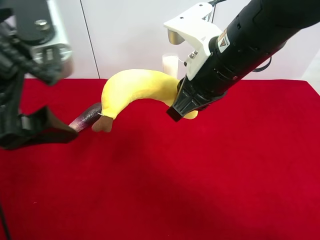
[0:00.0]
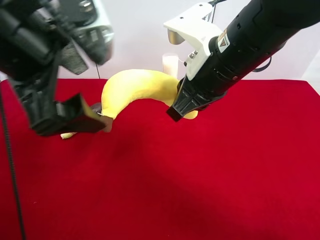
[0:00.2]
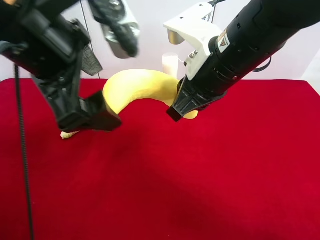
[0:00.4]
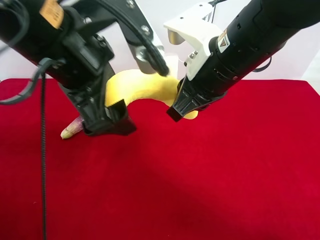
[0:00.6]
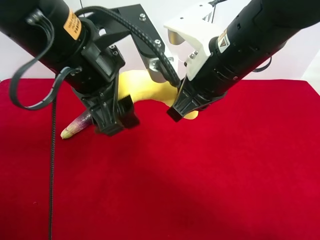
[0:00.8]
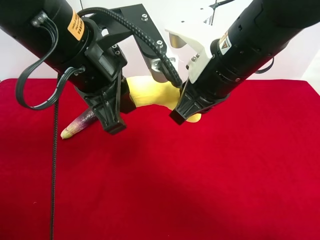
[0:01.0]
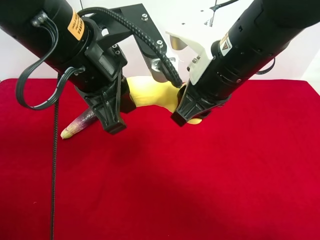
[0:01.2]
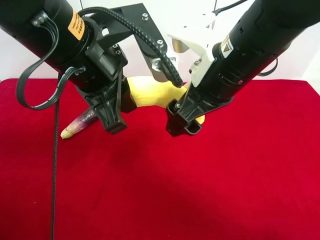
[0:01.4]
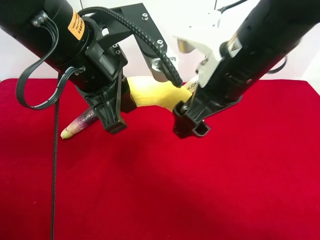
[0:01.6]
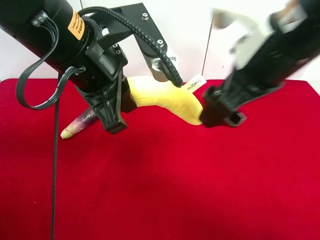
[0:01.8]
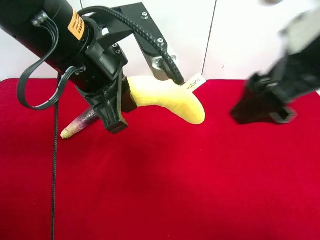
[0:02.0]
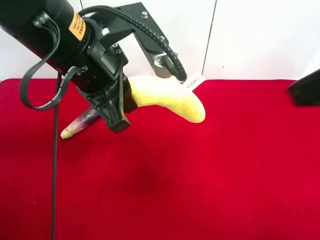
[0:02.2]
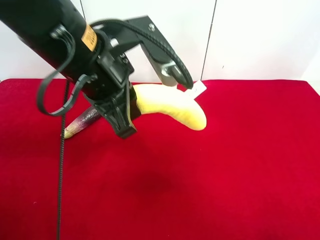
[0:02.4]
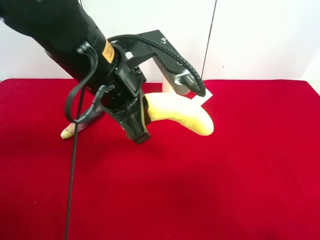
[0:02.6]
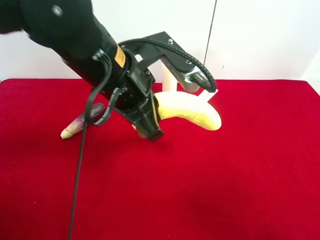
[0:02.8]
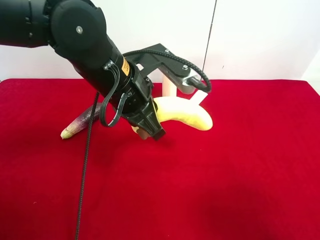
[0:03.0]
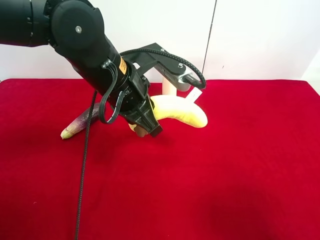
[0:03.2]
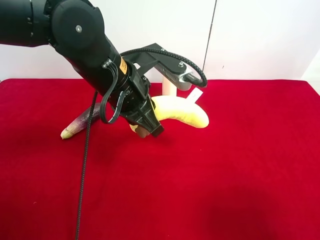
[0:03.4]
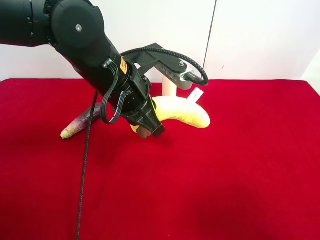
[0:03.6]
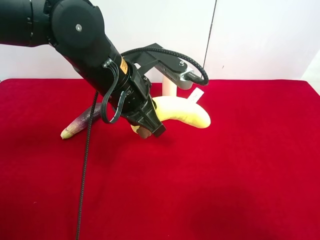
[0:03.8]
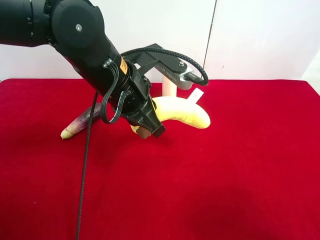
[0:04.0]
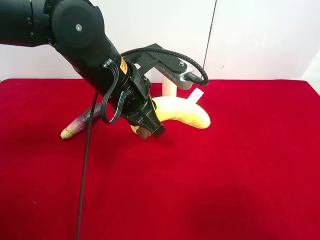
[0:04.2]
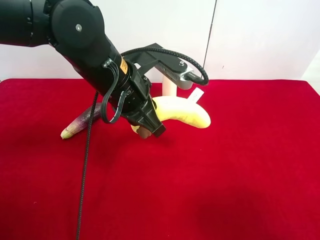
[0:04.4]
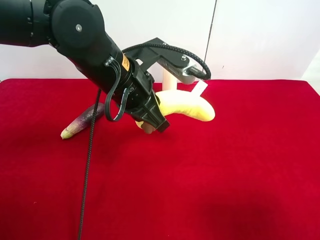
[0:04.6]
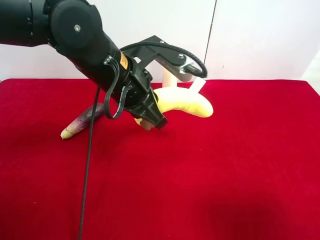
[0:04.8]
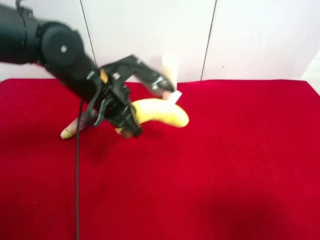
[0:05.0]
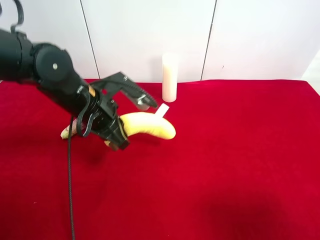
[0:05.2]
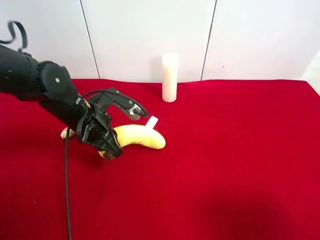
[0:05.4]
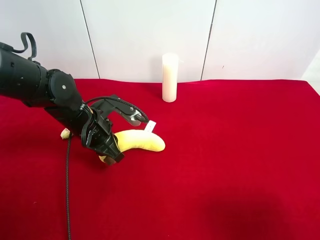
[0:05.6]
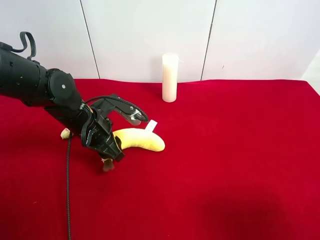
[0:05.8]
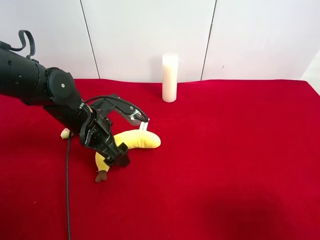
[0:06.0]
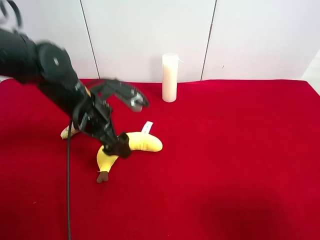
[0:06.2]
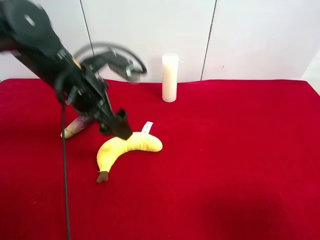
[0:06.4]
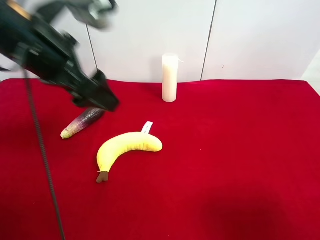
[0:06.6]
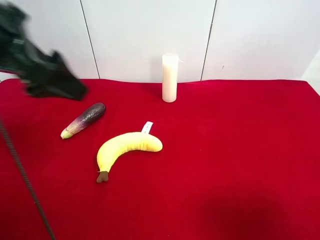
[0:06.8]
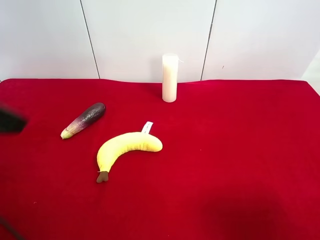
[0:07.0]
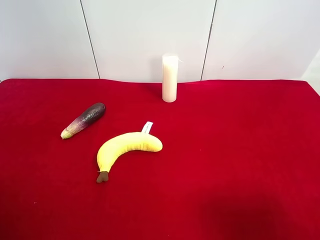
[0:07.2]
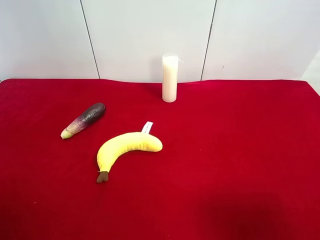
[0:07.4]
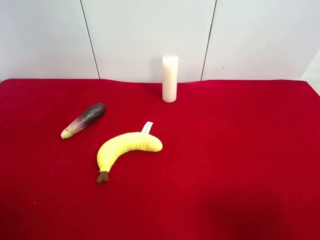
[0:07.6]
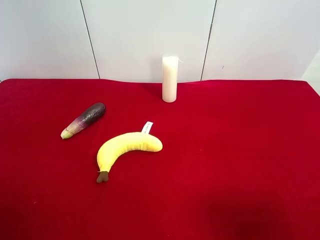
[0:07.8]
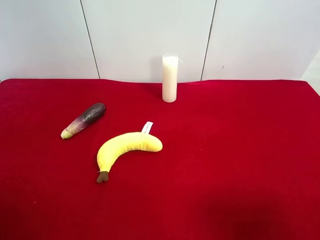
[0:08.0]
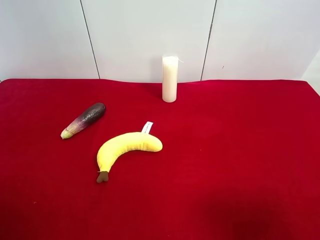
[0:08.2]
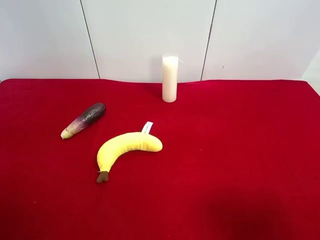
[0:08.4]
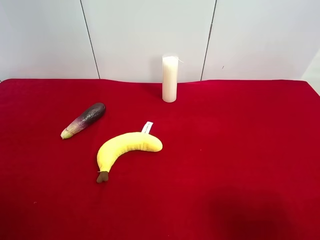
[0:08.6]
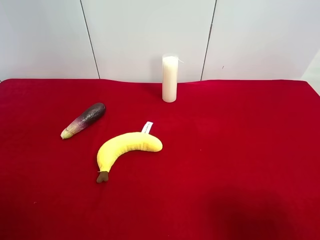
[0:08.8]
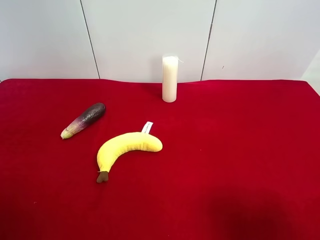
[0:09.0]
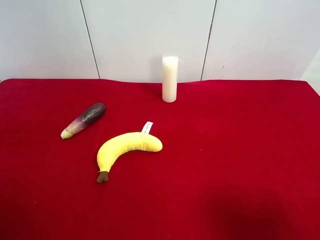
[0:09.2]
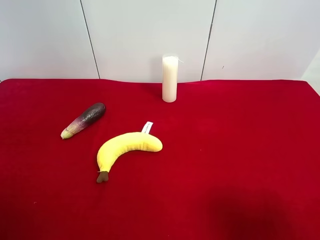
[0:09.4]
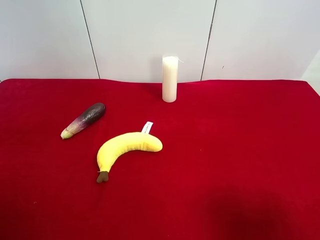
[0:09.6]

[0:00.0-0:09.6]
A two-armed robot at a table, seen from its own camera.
Task of the whole recording: use the right gripper to pick up the item and transfer it from the right gripper to the left gripper.
Step, 0:01.6 to 0:06.0: The left gripper places plush banana on the left side of the table.
0:00.0 to 0:01.6: The right gripper opens its fingers. Meanwhile the left gripper heads to the right, covering some 5 cm, and closes.
0:01.6 to 0:03.2: The right gripper moves to the right and backward, approximately 30 cm; the left gripper shifts about 5 cm downward.
0:04.8 to 0:06.4: The left gripper is displaced to the left by some 10 cm, moves approximately 10 cm downward and comes back, and opens up.
0:06.4 to 0:08.0: The left gripper heads backward and to the left, covering about 35 cm.

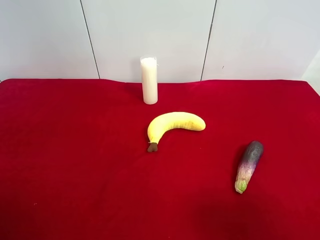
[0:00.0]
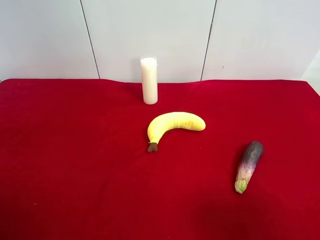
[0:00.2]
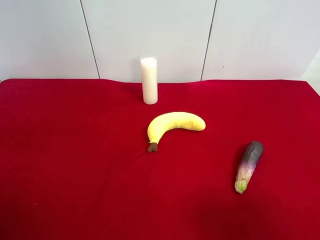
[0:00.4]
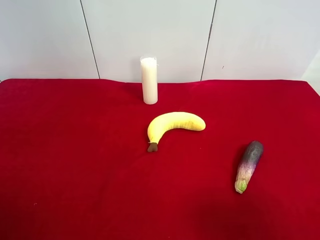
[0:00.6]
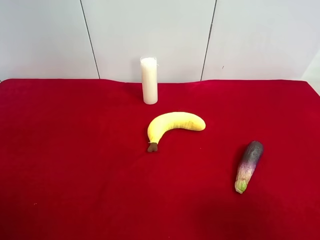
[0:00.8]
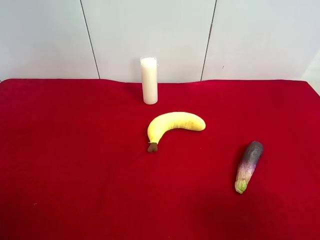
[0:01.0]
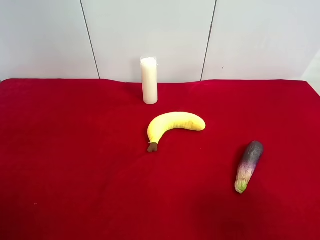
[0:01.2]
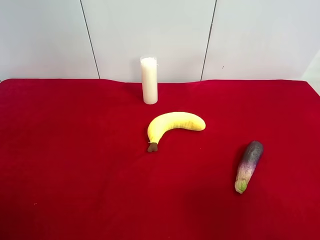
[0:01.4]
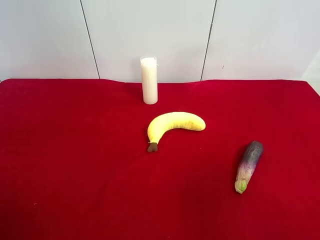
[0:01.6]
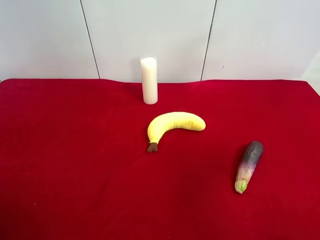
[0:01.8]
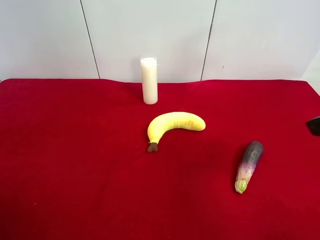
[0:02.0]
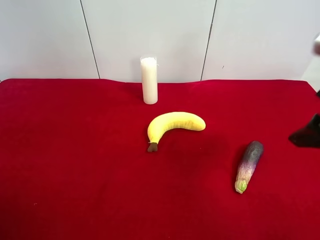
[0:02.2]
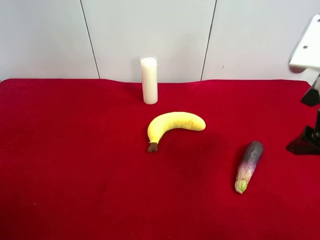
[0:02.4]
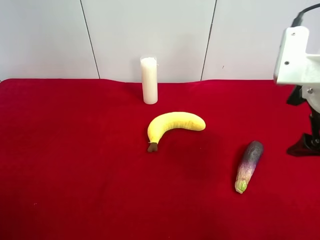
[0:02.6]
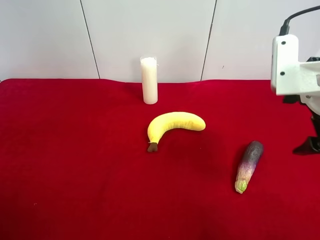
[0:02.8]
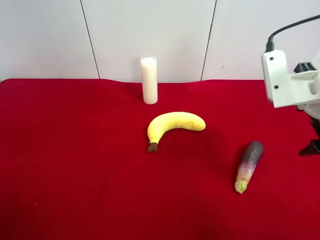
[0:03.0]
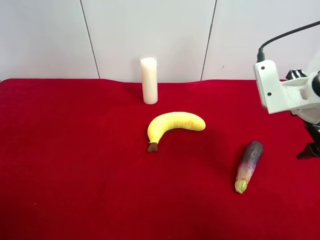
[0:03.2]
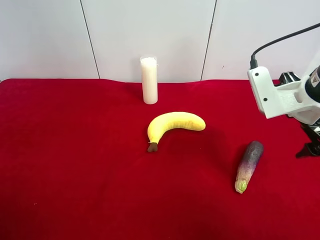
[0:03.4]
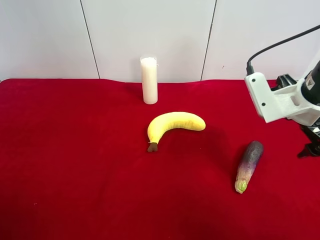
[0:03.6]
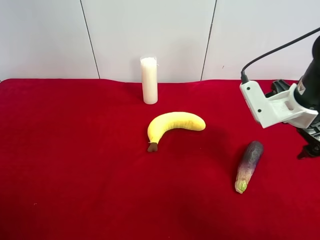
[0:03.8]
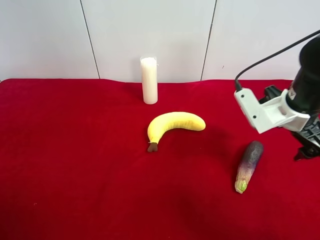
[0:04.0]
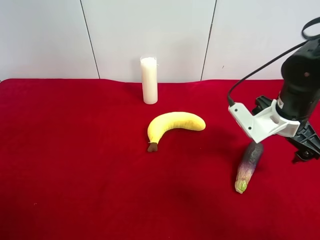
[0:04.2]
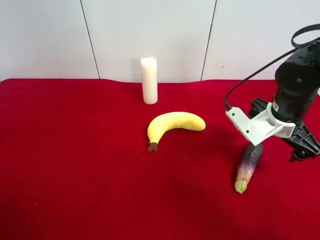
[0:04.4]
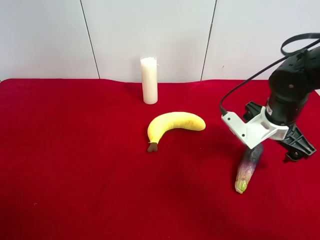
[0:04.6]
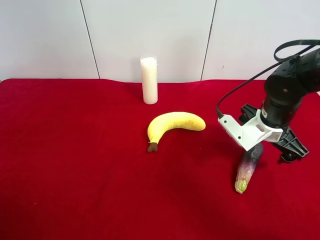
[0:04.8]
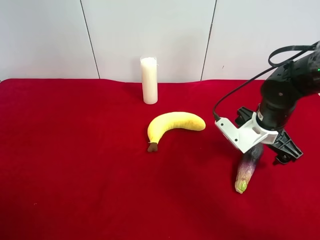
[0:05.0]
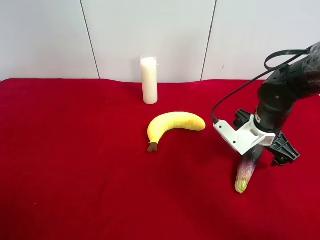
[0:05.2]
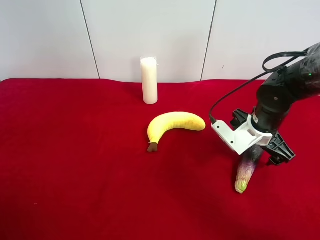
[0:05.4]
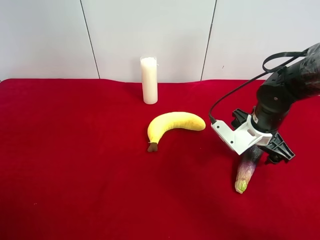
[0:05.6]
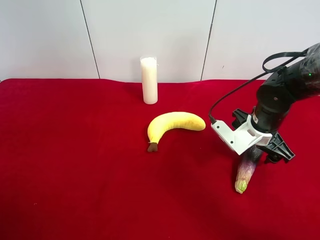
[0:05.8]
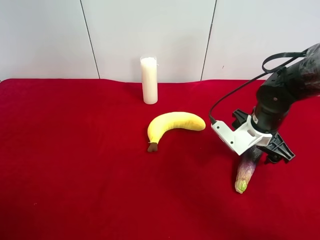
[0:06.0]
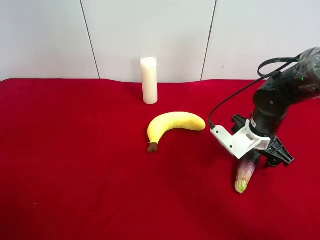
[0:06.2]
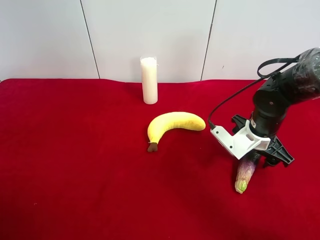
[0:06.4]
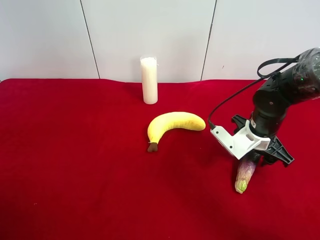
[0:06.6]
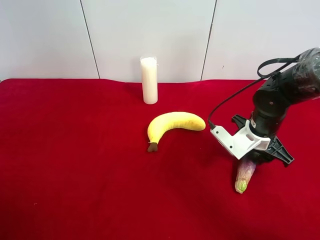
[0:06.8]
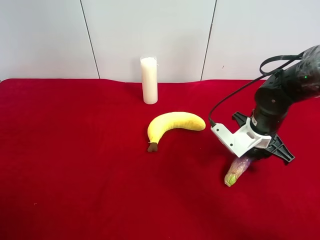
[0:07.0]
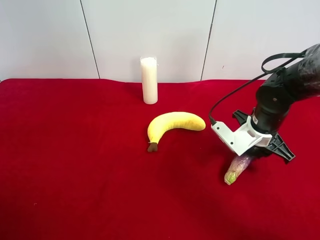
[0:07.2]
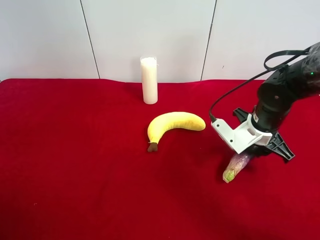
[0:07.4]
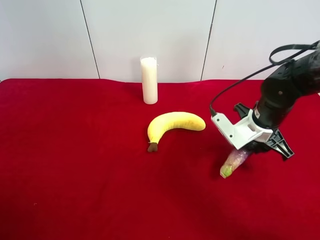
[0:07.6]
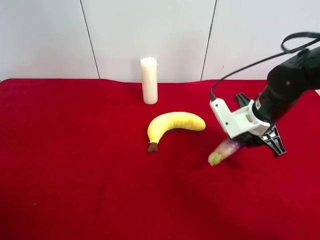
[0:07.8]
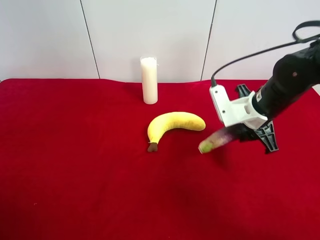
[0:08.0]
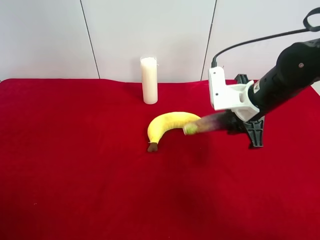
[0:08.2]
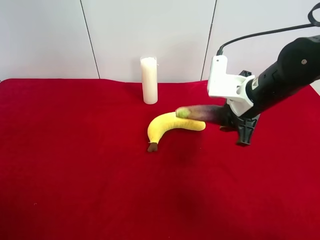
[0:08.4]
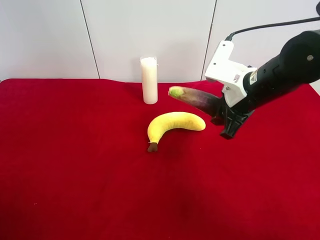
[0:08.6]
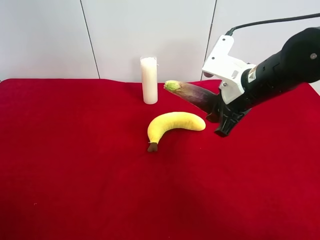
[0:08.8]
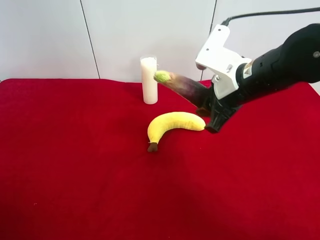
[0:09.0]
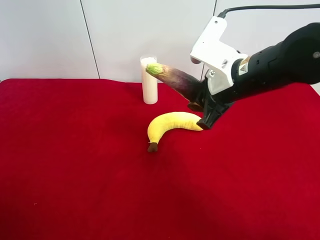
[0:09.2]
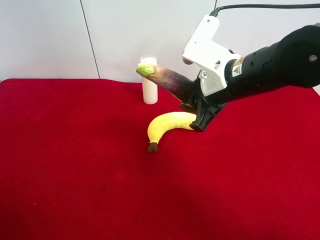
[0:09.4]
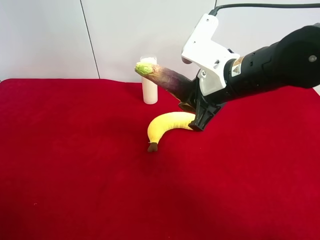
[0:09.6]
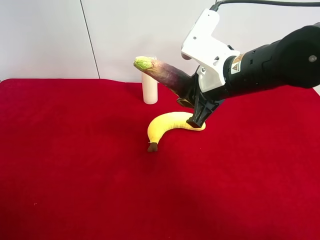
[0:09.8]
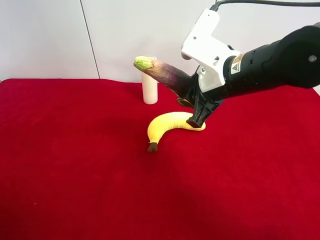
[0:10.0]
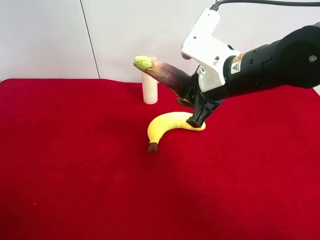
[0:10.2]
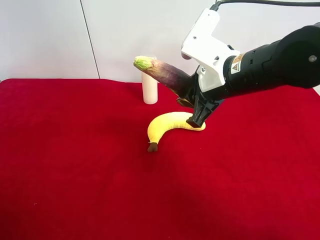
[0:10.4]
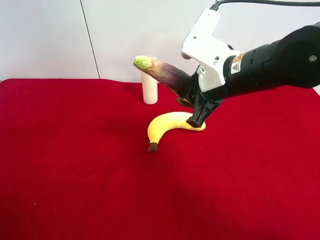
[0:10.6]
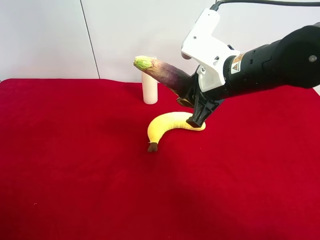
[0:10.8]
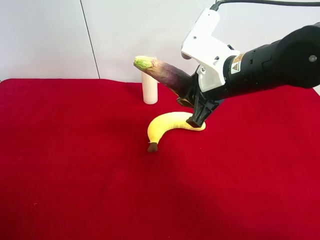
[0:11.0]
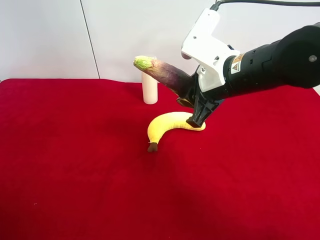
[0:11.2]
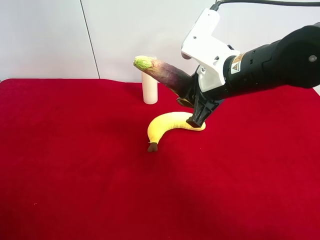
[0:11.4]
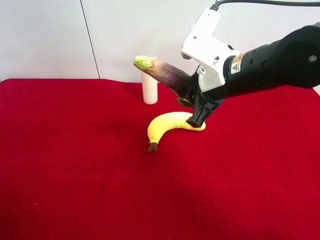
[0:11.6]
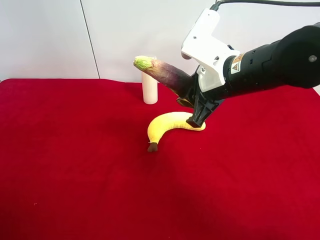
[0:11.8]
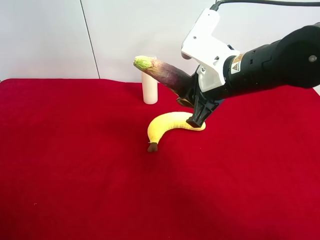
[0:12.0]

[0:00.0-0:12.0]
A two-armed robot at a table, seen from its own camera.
Task of the whole recording: use the right gripper to pick up the item and transfer it from the right gripper to the left gripper.
Step, 0:00.0 to 0:06.8: Use the right gripper to grab the eggplant on the right side of the table.
0:01.6 to 0:03.0: The right gripper moves forward and downward, about 15 cm.
0:03.0 to 0:04.4: The right gripper shifts about 10 cm downward and forward.
0:04.4 to 0:06.0: The right gripper changes place by approximately 5 cm.
0:06.0 to 0:07.6: The right gripper closes.
0:07.6 to 0:09.0: The right gripper is displaced upward and to the left by approximately 15 cm.
0:09.0 to 0:10.4: The grippers make only small movements.
